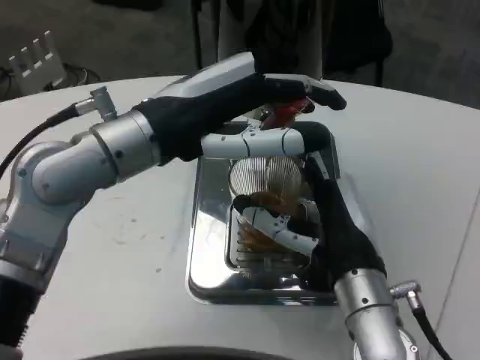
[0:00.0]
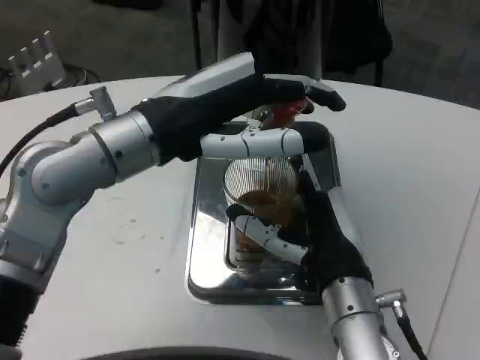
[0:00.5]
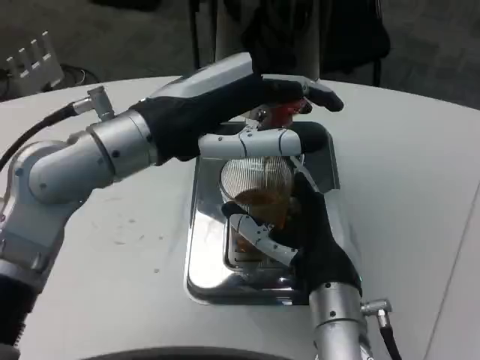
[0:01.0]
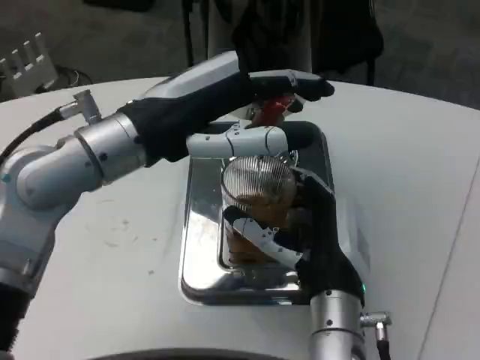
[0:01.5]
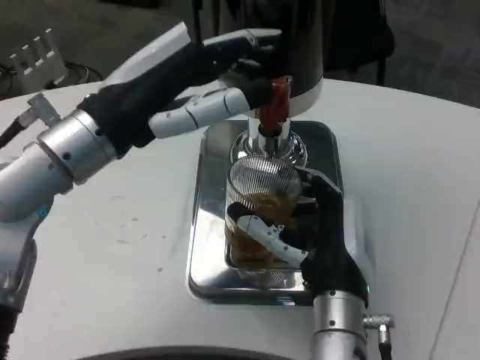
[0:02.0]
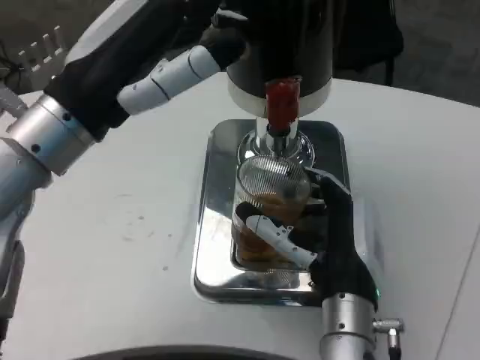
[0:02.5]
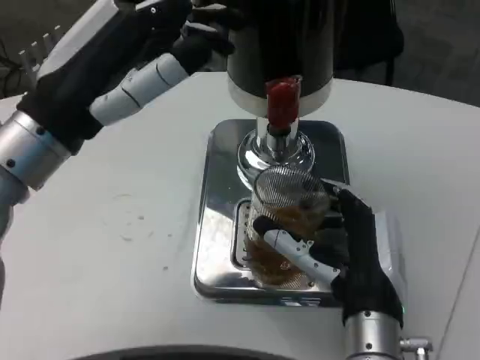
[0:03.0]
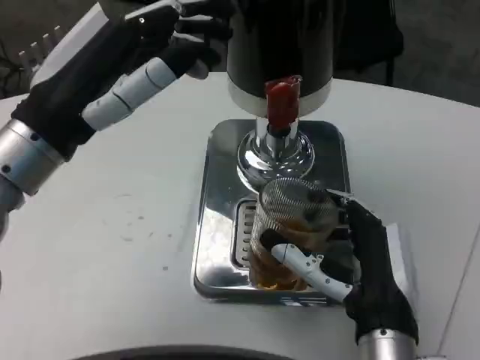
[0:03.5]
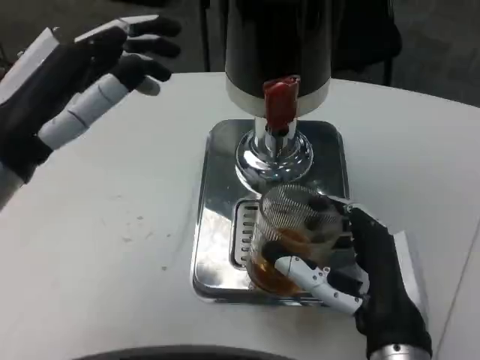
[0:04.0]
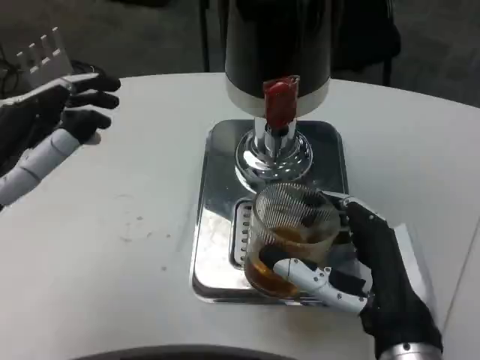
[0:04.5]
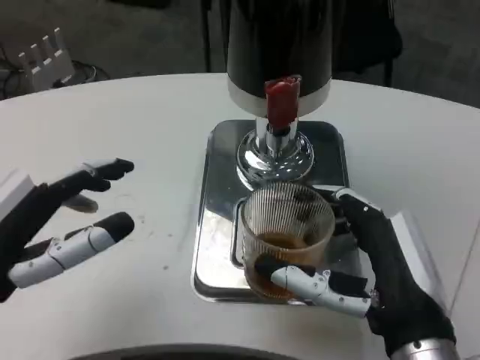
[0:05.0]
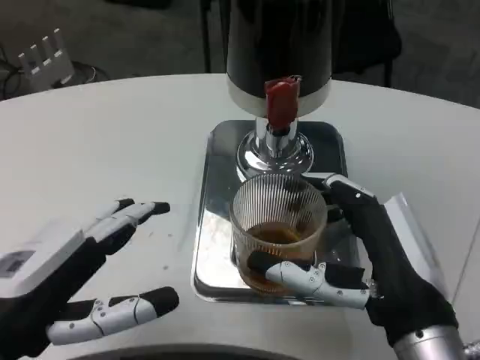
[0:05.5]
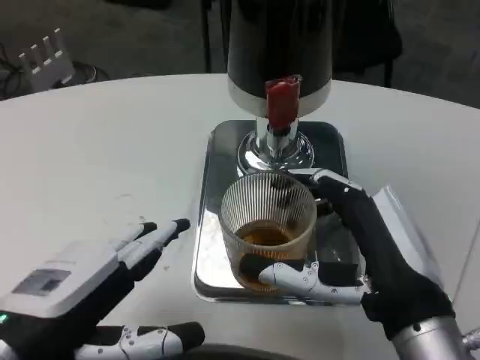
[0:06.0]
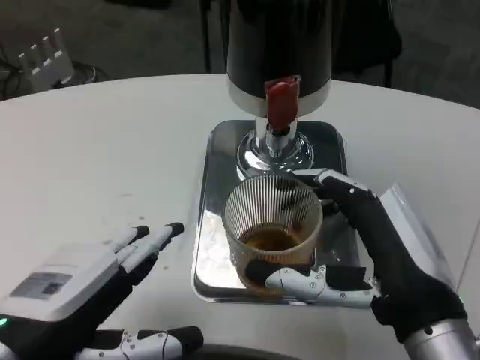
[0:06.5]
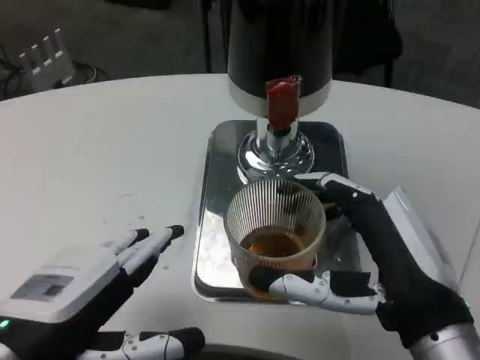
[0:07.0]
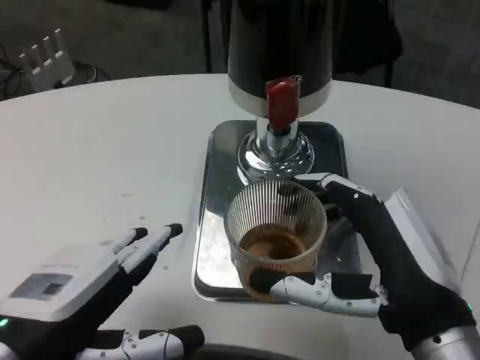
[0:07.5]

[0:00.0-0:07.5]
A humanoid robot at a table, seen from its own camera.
Task of the whole recording: Grasp the cup under the faucet to collect the drink, then remove the cup.
0:02.0 to 0:04.0: The left hand moves to the left, some 5 cm. Meanwhile the right hand heads backward, covering roughly 5 cm.
0:04.0 to 0:05.5: The left hand is displaced backward and downward by about 10 cm.
0:05.5 to 0:07.5: There are only small adjustments of the hands.

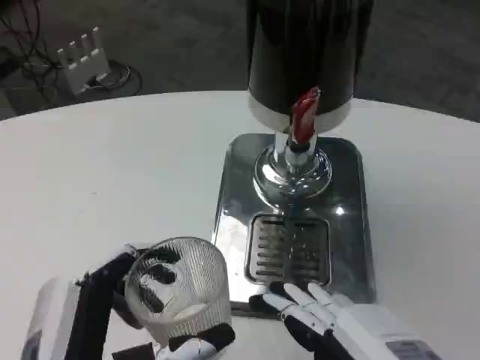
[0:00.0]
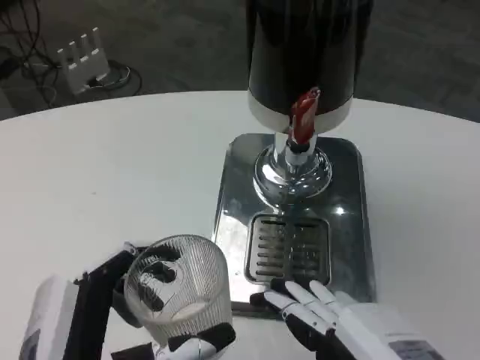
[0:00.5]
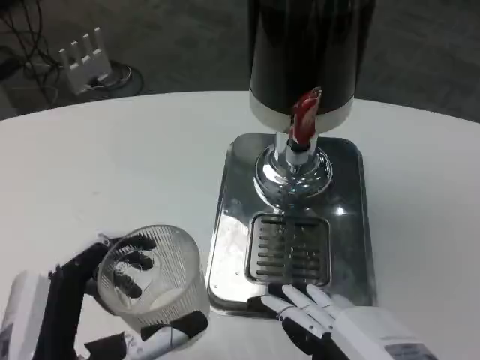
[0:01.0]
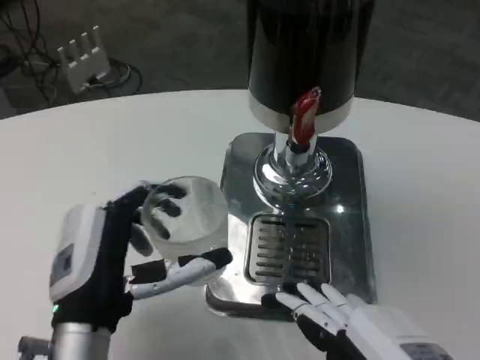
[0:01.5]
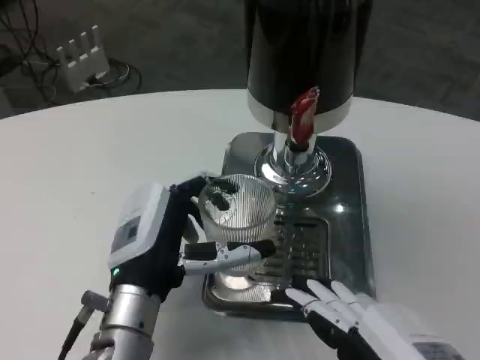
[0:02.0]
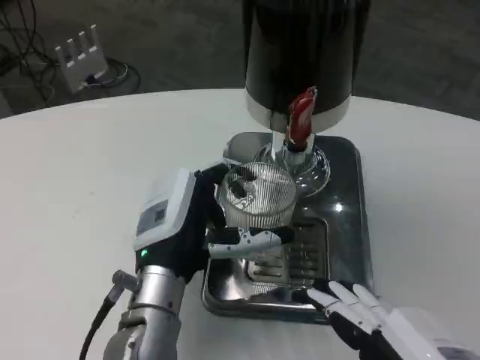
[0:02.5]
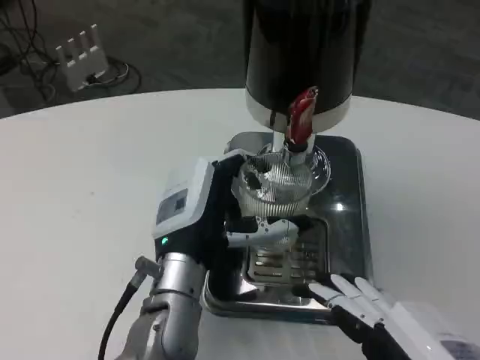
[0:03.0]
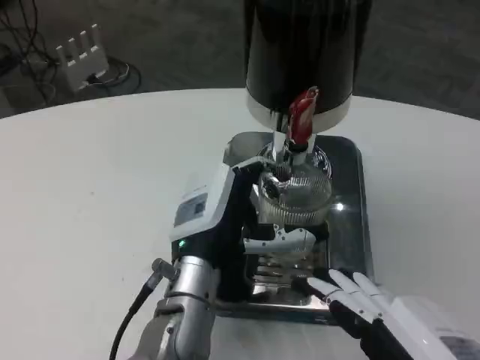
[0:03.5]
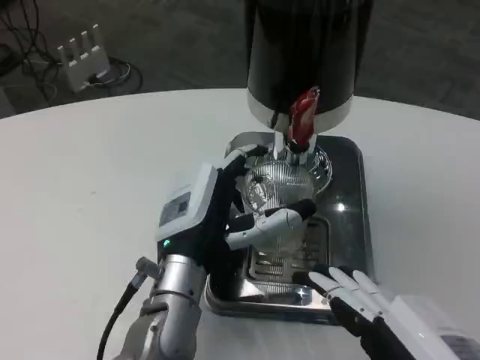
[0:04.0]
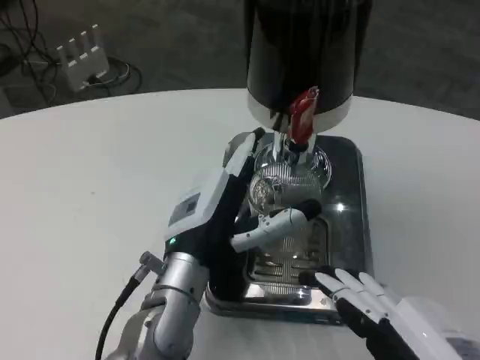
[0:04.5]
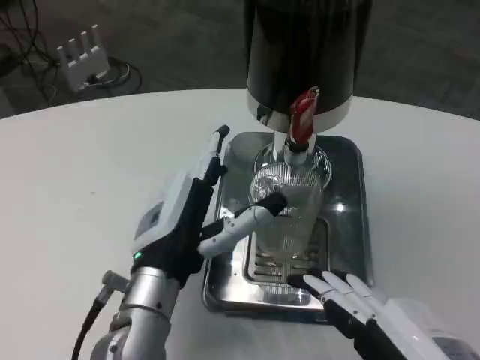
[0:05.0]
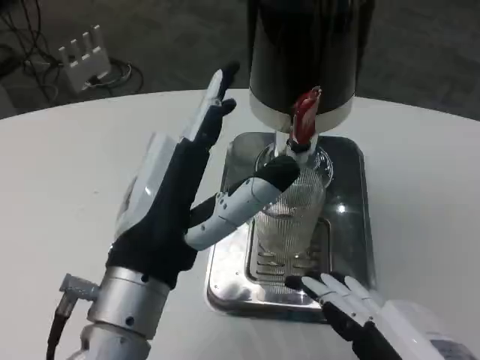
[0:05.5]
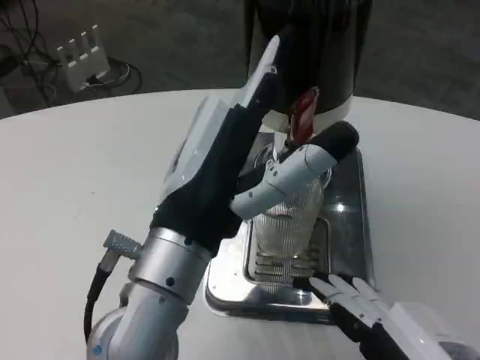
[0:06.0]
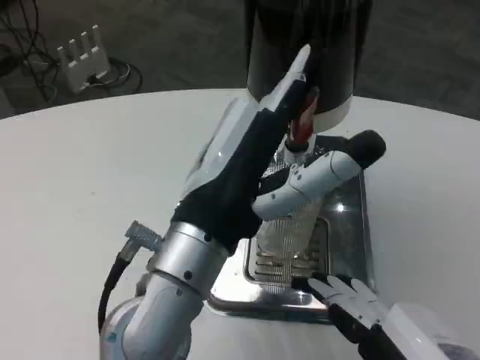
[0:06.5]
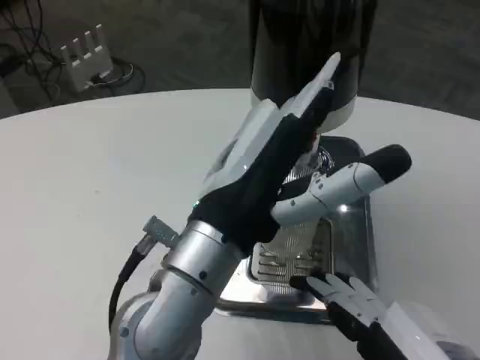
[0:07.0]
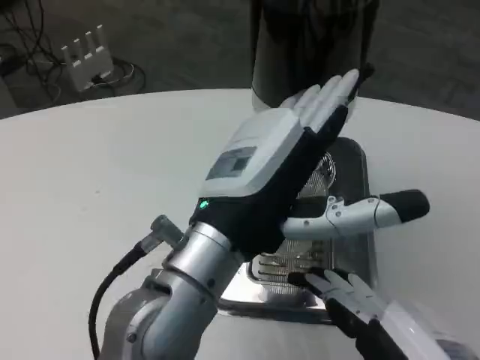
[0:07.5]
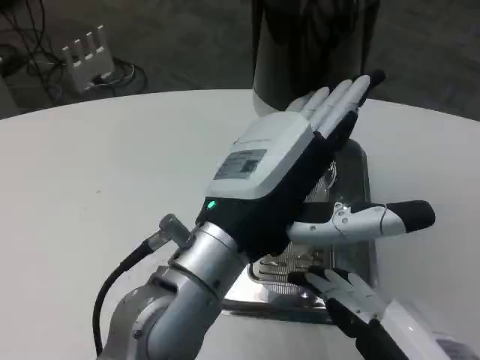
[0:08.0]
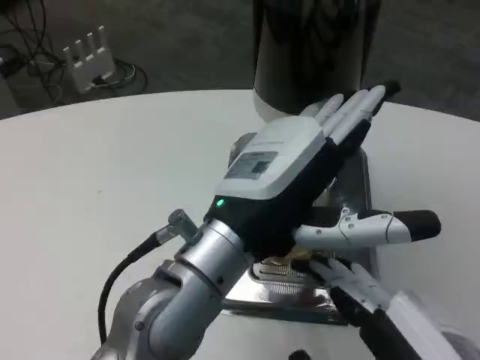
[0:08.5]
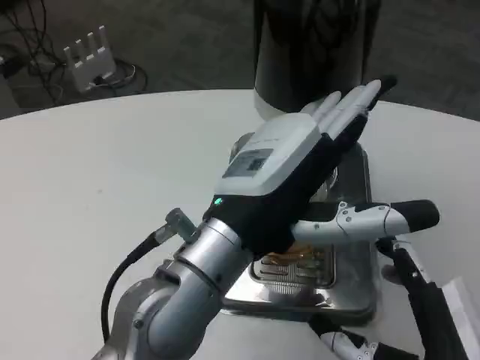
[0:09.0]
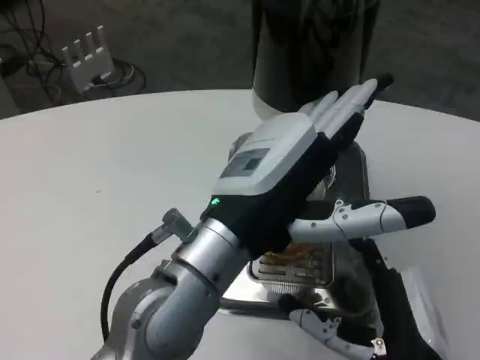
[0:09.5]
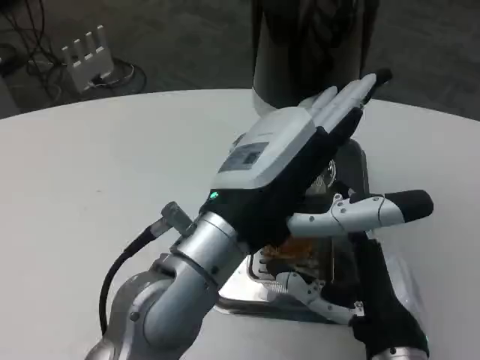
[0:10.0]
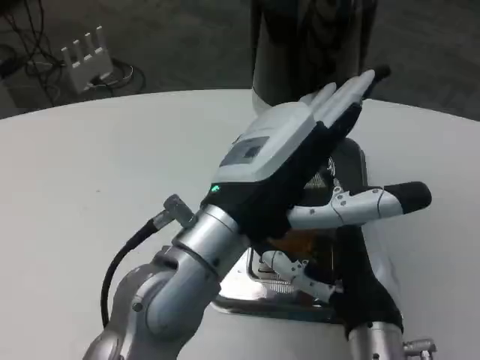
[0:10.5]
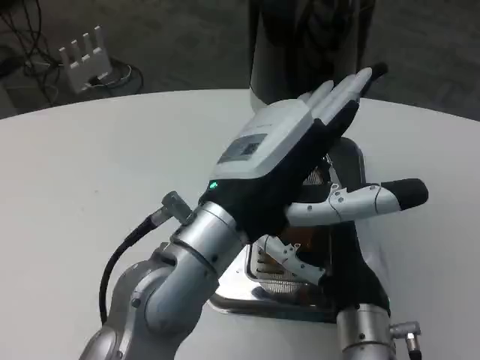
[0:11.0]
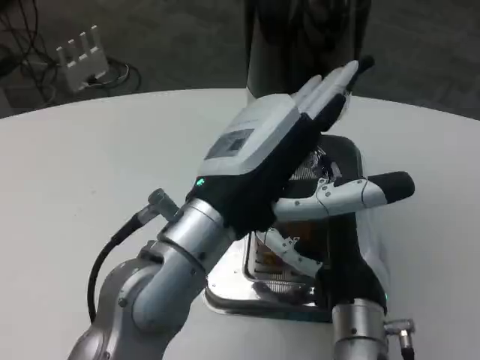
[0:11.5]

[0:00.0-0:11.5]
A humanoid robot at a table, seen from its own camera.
Task of the whole recording: Grasp the cup under the faucet to collect the drink, then remove the cup.
0:00.0 to 0:02.0: The left hand travels forward by some 15 cm.
0:02.0 to 0:04.0: The hands make only small movements.
0:04.0 to 0:06.0: The left hand shifts about 10 cm upward and backward.
0:07.5 to 0:09.5: The right hand heads forward and downward, covering about 10 cm.
0:09.5 to 0:11.5: The right hand moves forward, approximately 10 cm.

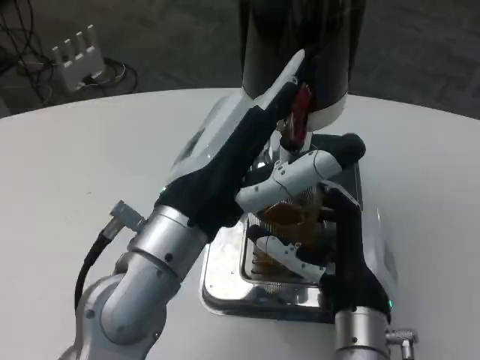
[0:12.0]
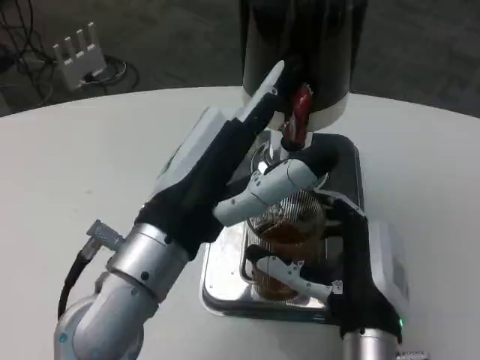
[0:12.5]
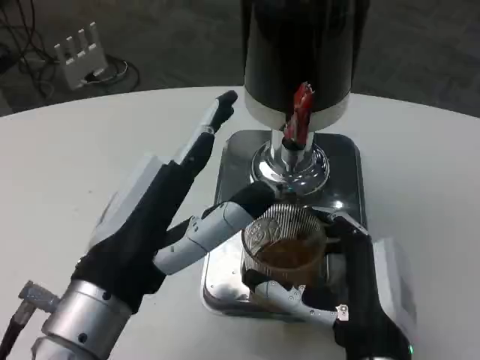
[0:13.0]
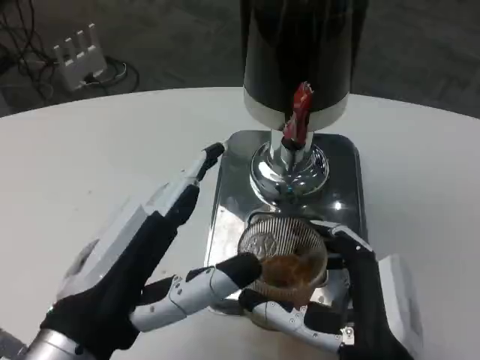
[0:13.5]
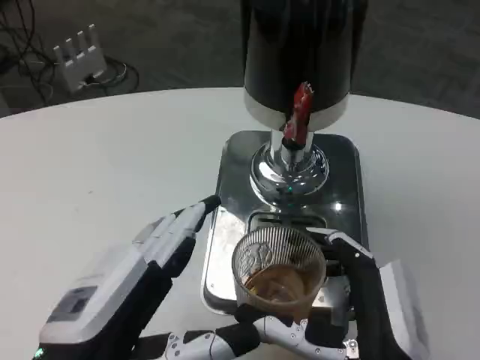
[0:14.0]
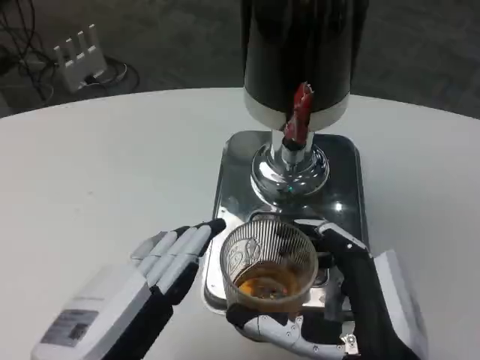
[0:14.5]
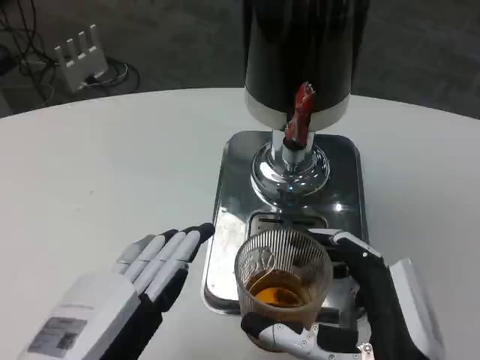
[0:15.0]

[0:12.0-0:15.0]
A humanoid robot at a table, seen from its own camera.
Task of the whole recording: Grasp the cup under the faucet to collect the drink, then remove the cup.
0:12.0 to 0:13.5: The left hand moves backward and to the left, approximately 10 cm. Meanwhile the right hand goes roughly 10 cm backward.
0:13.5 to 0:15.0: The left hand changes place by approximately 5 cm.

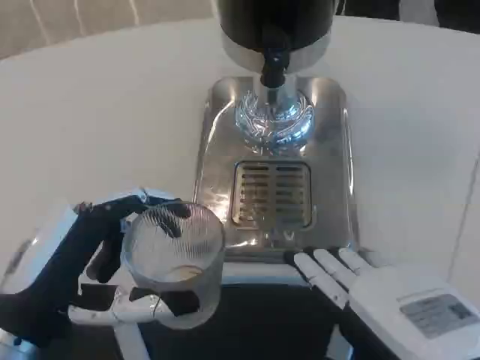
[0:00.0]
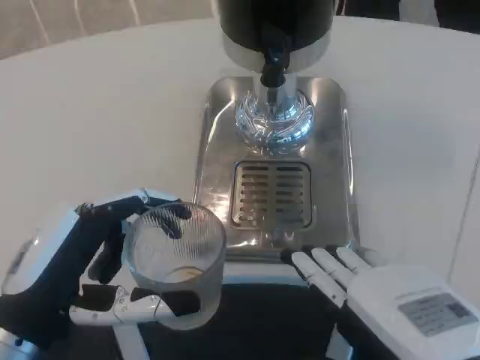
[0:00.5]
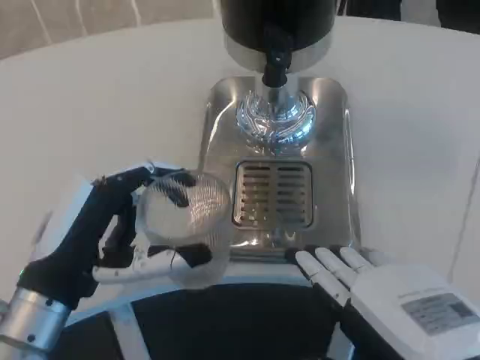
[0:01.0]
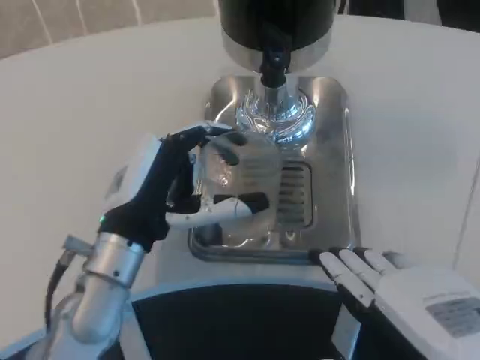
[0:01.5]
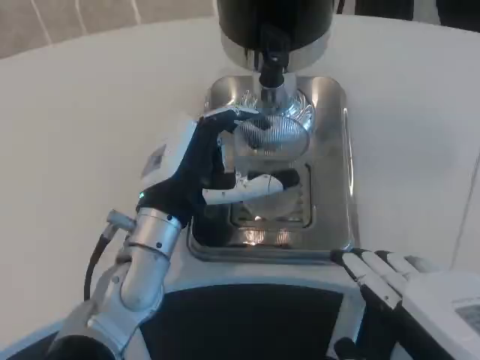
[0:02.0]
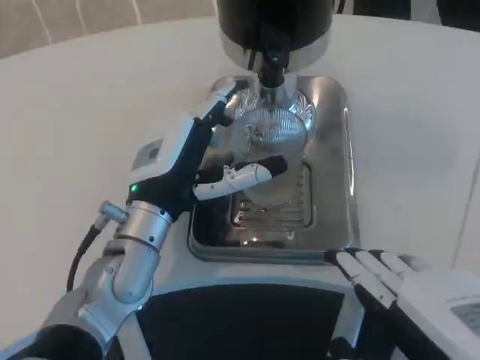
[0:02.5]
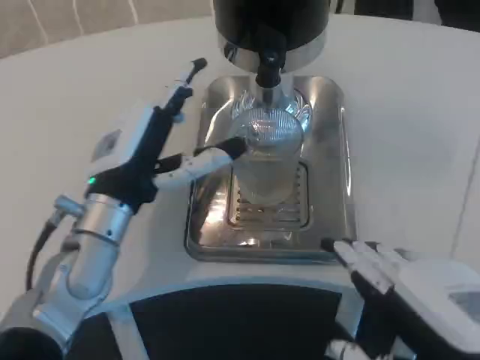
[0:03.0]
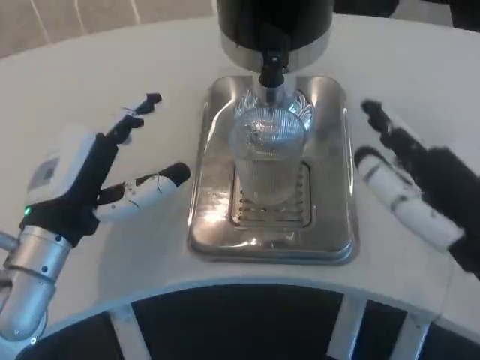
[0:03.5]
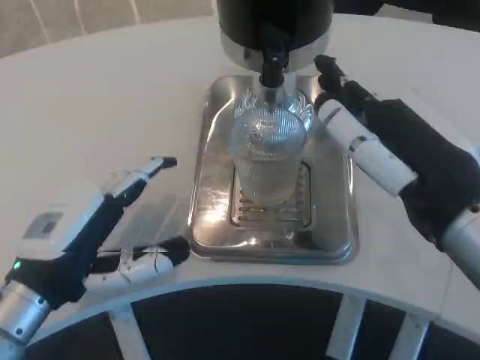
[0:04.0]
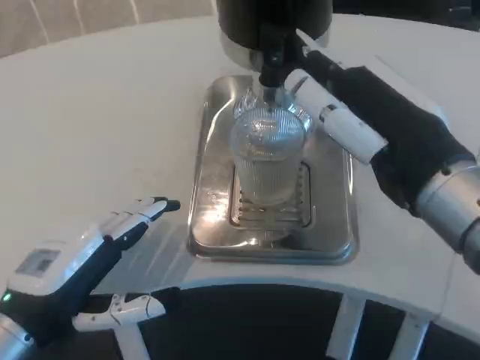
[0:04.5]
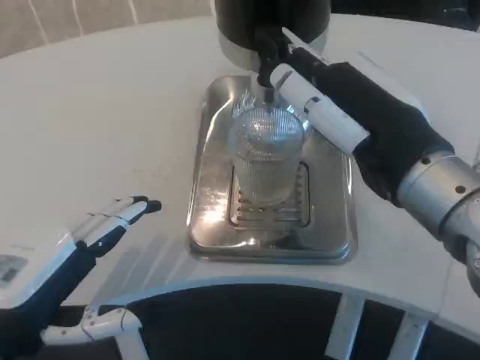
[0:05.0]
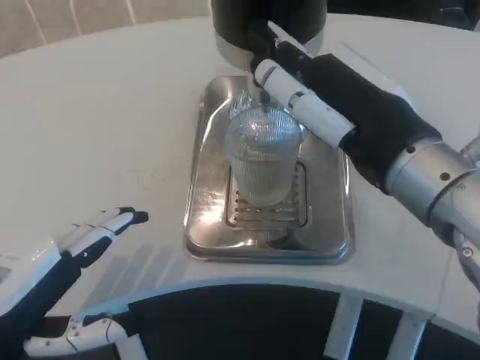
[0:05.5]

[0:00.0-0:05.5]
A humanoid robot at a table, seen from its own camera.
Task of the whole recording: Grasp the cup under the faucet to collect the drink, then remove the cup.
0:00.0 to 0:02.0: The left hand shifts some 15 cm forward and to the right.
0:02.0 to 0:03.5: The left hand is displaced to the left by roughly 10 cm. Meanwhile the right hand moves forward, approximately 5 cm.
0:03.5 to 0:05.5: The right hand moves forward, approximately 5 cm. Meanwhile the left hand moves backward and to the left, roughly 10 cm.
